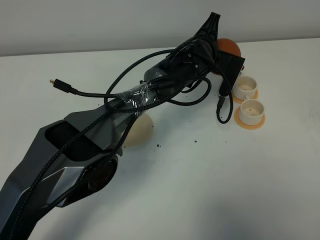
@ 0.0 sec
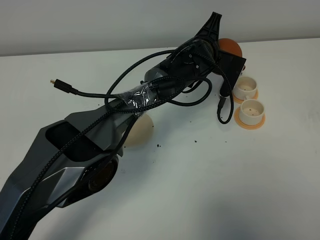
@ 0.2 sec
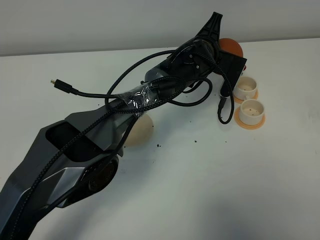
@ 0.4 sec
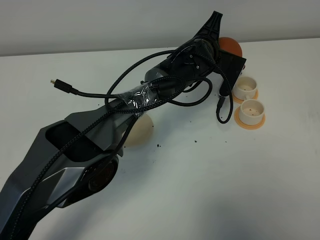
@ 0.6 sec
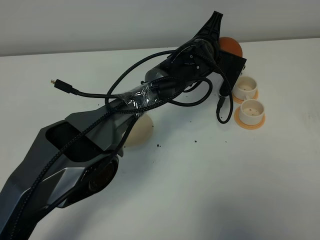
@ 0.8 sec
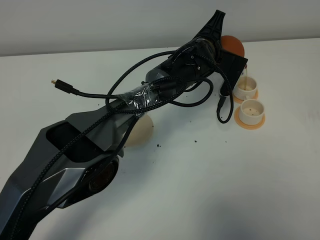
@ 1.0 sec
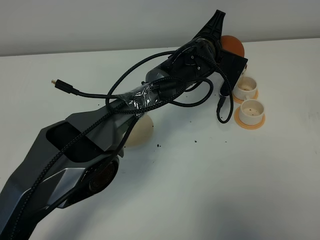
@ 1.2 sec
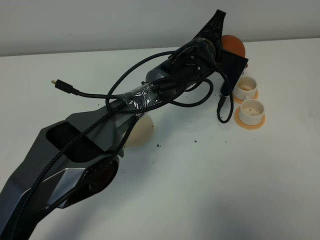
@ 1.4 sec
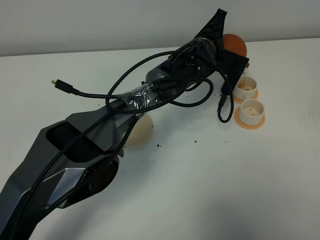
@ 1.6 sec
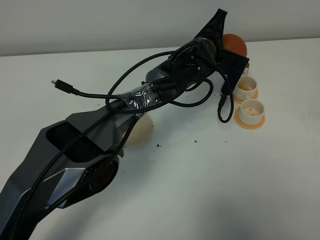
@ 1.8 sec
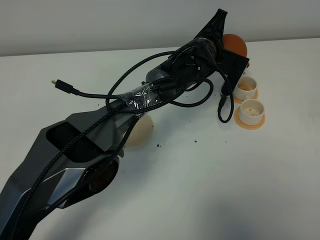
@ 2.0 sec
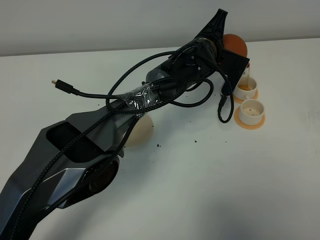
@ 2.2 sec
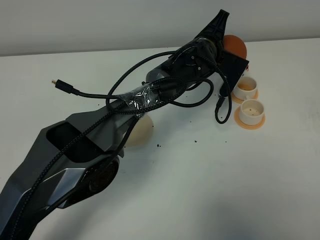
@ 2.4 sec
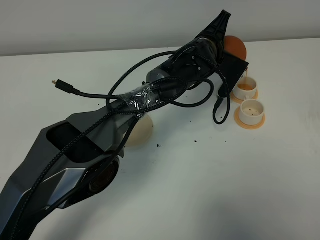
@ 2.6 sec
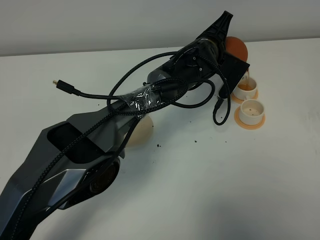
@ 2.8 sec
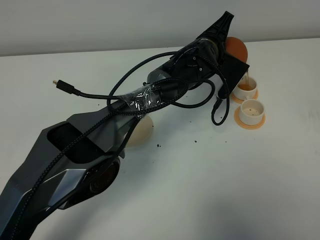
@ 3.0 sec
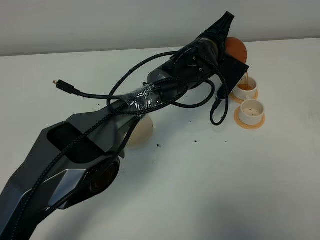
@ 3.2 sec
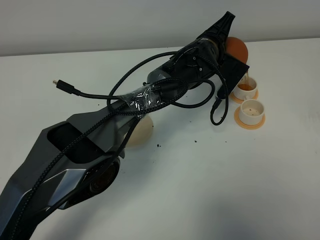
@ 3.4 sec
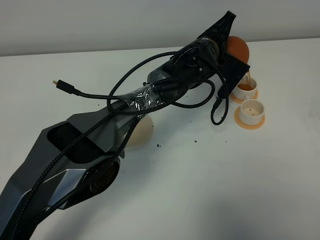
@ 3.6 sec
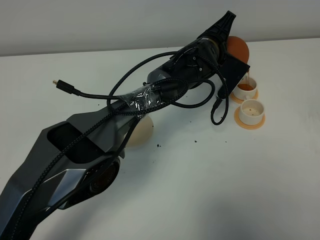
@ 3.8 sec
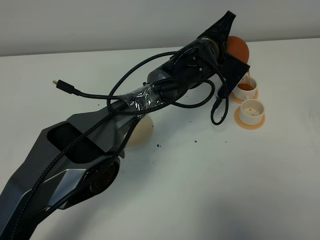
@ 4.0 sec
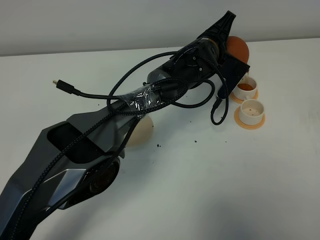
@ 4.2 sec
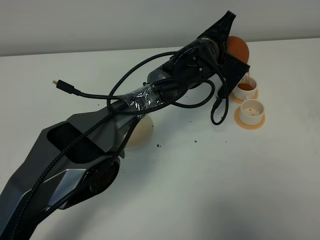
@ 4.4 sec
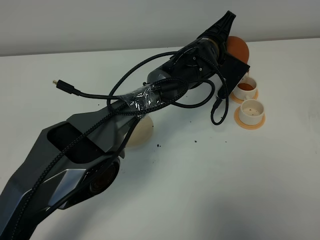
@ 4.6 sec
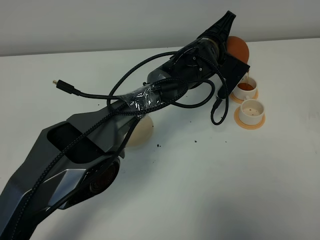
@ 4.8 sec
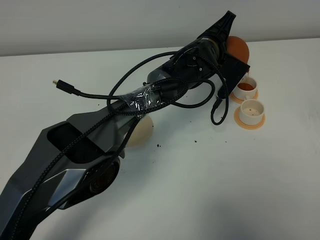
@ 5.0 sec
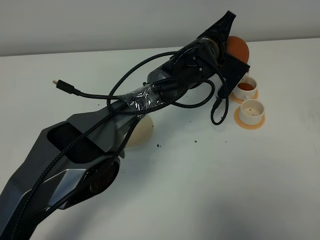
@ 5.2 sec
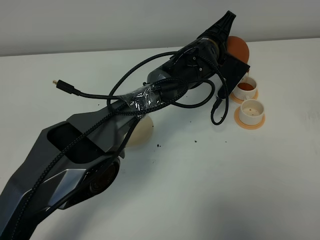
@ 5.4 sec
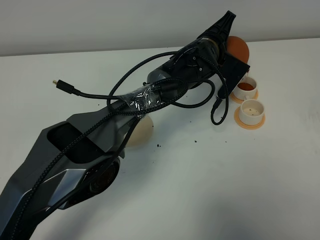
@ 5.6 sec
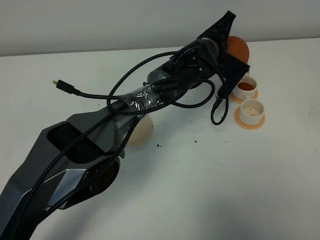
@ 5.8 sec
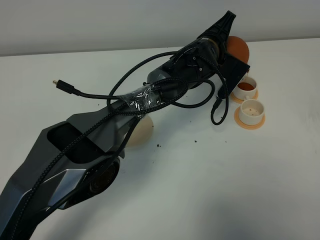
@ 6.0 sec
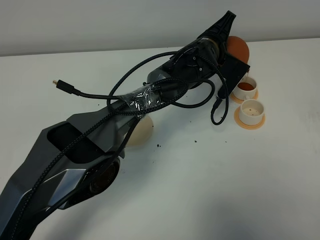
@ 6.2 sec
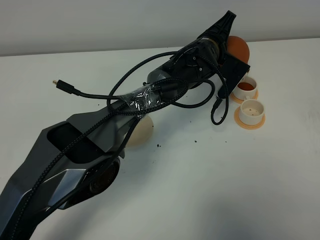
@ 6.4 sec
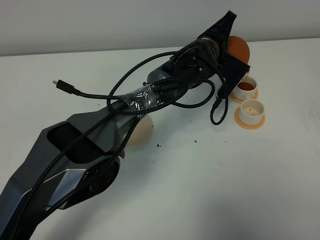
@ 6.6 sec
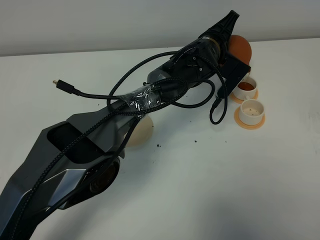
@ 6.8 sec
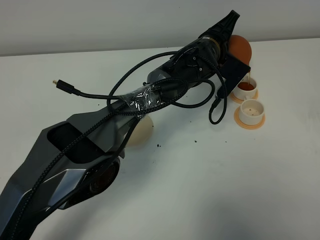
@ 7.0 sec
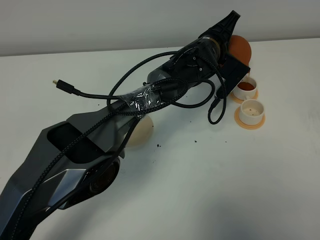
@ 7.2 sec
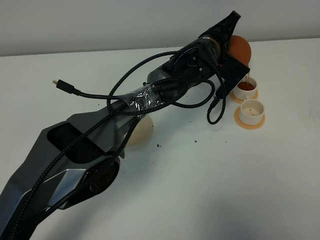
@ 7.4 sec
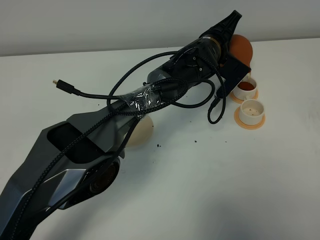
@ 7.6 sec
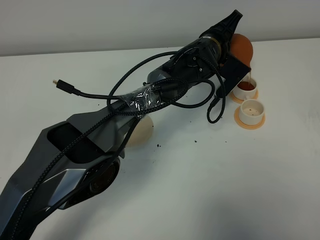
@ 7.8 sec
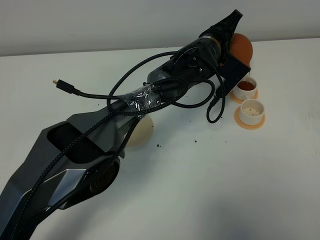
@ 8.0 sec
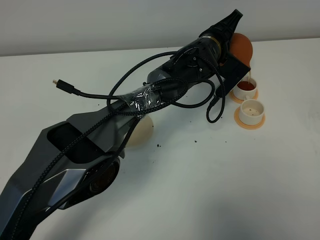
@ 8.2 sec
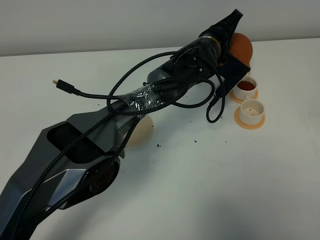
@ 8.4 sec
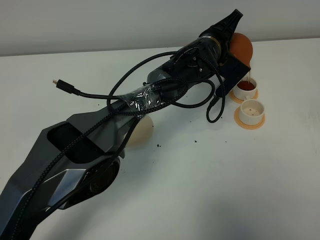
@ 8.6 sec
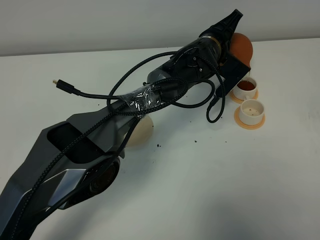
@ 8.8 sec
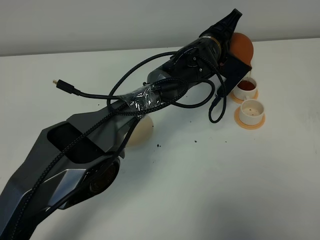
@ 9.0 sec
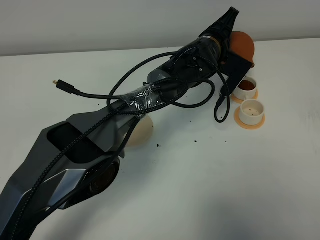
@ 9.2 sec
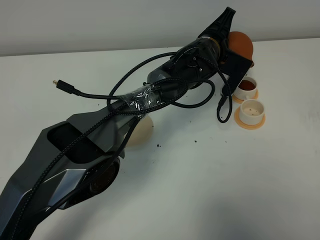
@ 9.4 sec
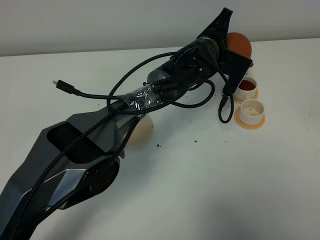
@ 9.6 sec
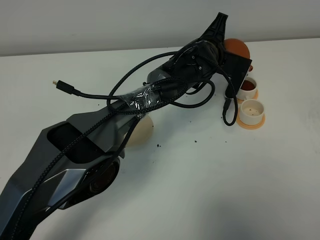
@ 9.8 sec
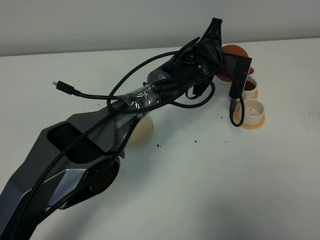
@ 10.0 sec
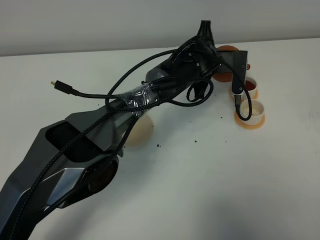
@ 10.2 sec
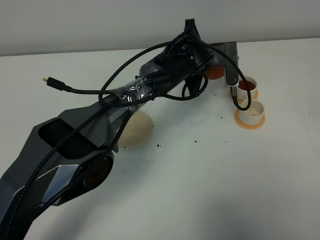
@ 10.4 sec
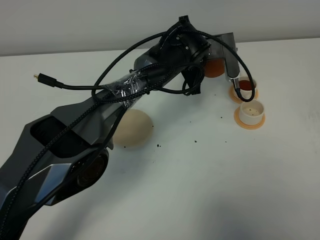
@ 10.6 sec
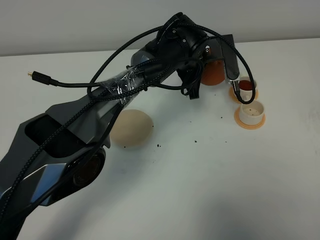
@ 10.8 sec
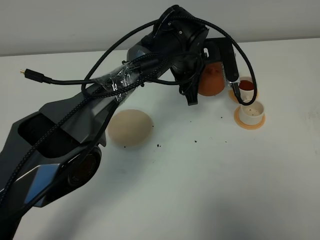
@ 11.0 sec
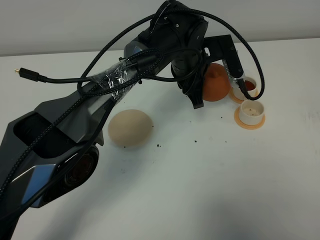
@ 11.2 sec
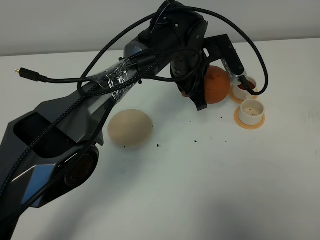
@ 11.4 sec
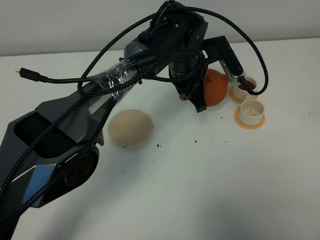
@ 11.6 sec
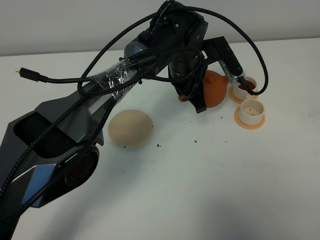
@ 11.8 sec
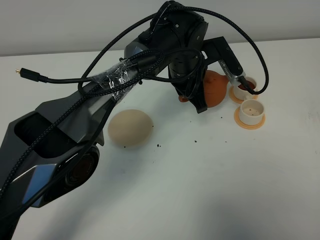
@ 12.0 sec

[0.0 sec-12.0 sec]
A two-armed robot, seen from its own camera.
Task of the whole recording: grasp the brown teapot and pour the tea into the two white teacups one by one, put the brown teapot back in its original place.
Step, 0.0 sec to 9.6 sec: Pour tea into the teacup with the left gripper.
0.0 sec to 1.6 sec: Both grippers stay put.
1.6 sec to 3.0 sec: There are only small adjustments of the grippers.
3.0 sec to 6.0 sec: Both grippers stay about where they are.
6.0 sec to 7.6 sec: The grippers make only small movements.
7.6 sec to 9.0 sec: Both grippers stay put.
10.4 sec to 12.0 sec: The left gripper shifts by about 5 cm.

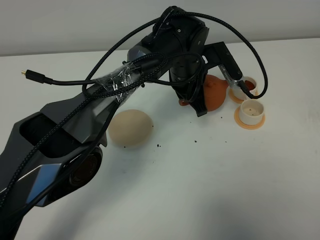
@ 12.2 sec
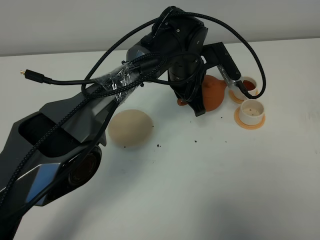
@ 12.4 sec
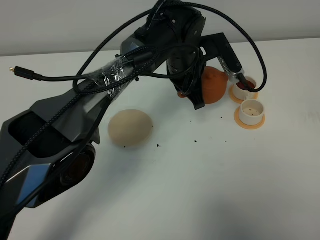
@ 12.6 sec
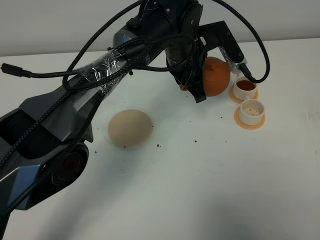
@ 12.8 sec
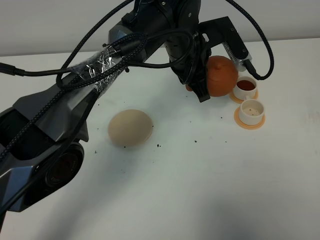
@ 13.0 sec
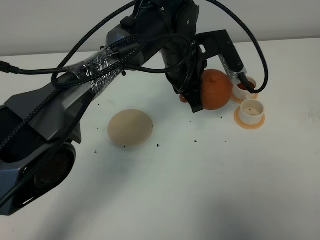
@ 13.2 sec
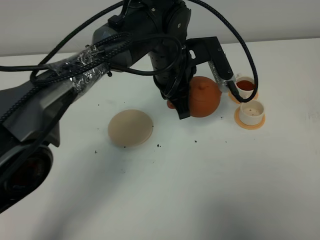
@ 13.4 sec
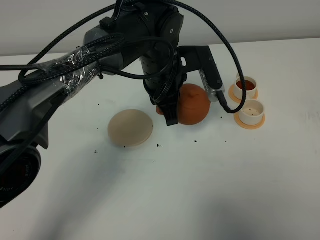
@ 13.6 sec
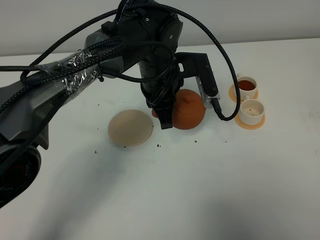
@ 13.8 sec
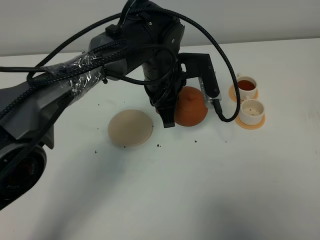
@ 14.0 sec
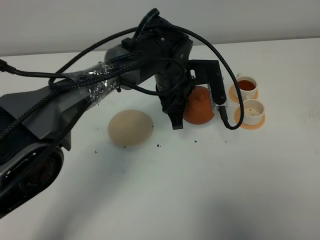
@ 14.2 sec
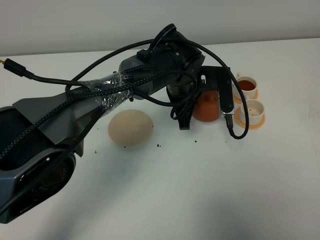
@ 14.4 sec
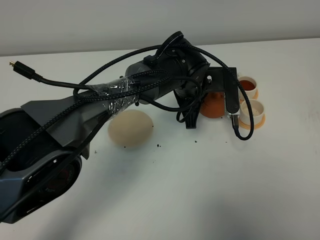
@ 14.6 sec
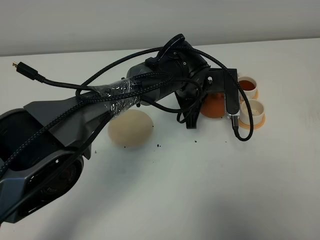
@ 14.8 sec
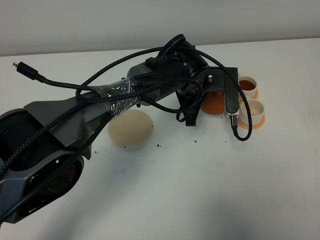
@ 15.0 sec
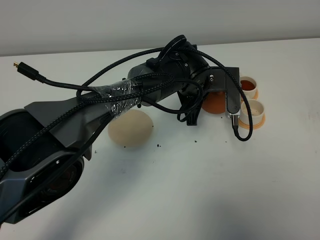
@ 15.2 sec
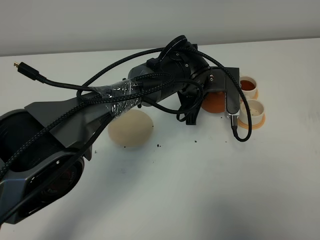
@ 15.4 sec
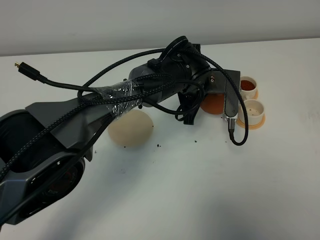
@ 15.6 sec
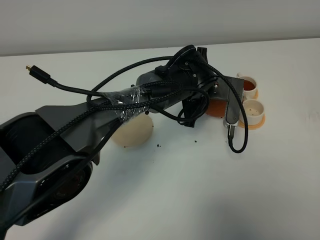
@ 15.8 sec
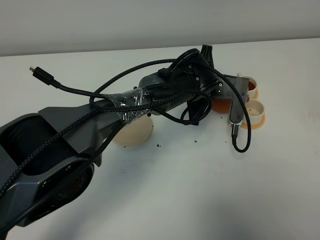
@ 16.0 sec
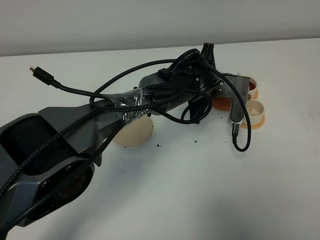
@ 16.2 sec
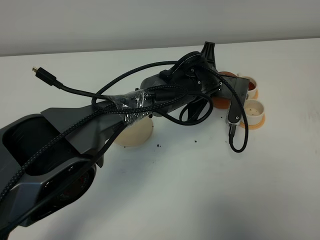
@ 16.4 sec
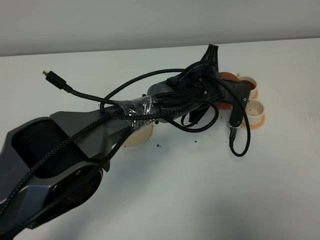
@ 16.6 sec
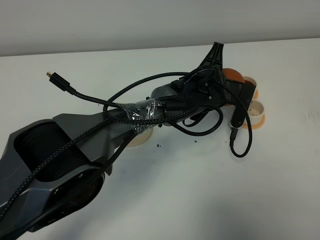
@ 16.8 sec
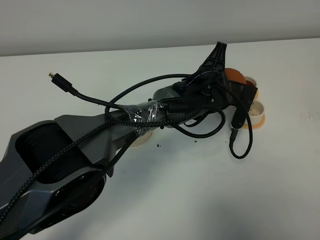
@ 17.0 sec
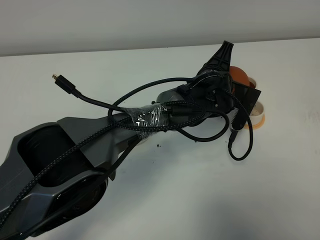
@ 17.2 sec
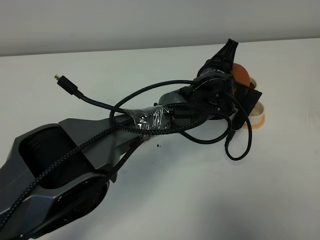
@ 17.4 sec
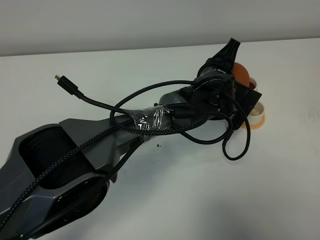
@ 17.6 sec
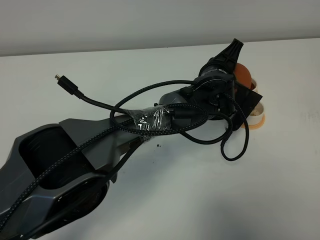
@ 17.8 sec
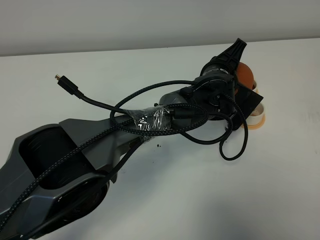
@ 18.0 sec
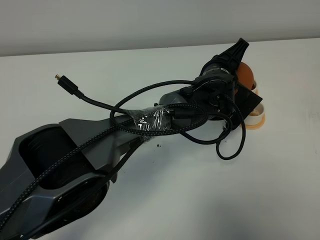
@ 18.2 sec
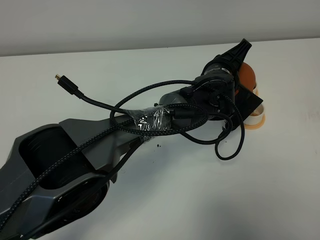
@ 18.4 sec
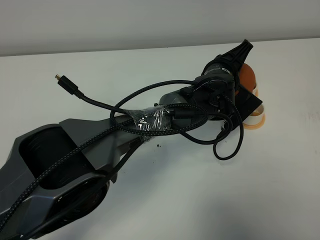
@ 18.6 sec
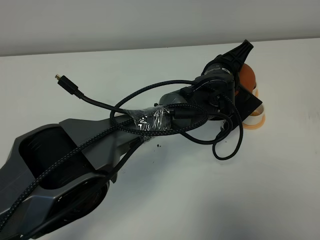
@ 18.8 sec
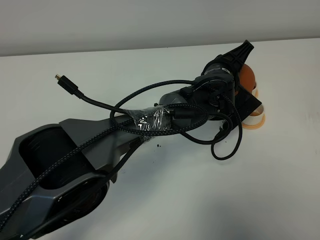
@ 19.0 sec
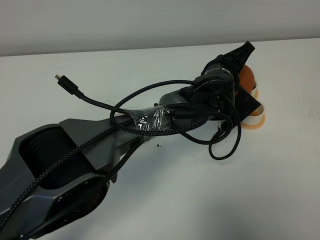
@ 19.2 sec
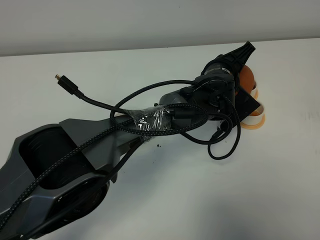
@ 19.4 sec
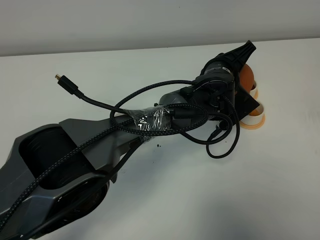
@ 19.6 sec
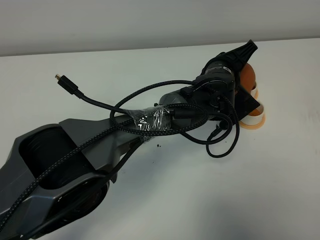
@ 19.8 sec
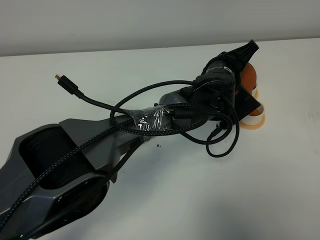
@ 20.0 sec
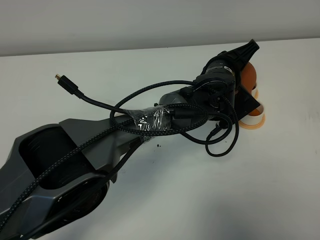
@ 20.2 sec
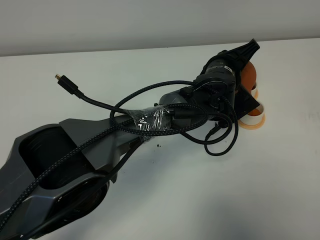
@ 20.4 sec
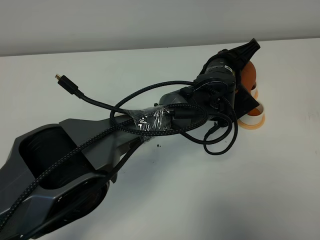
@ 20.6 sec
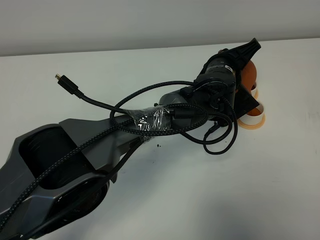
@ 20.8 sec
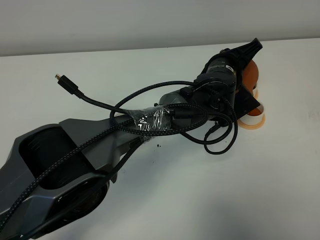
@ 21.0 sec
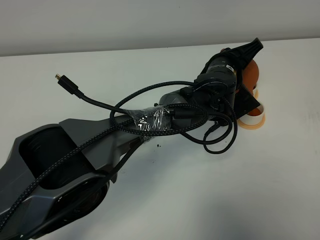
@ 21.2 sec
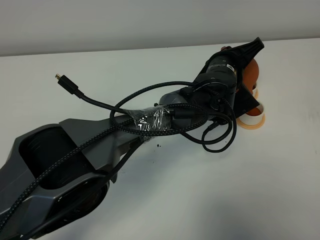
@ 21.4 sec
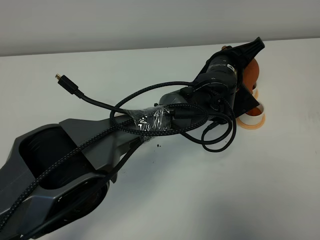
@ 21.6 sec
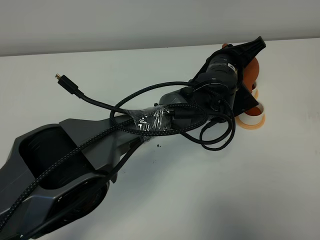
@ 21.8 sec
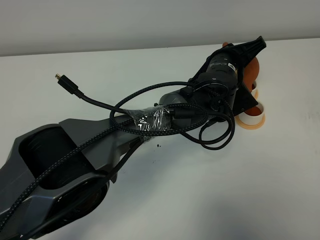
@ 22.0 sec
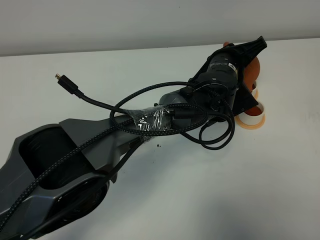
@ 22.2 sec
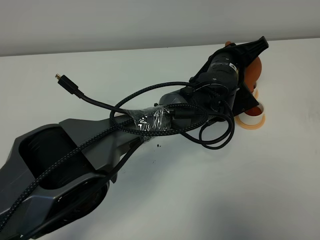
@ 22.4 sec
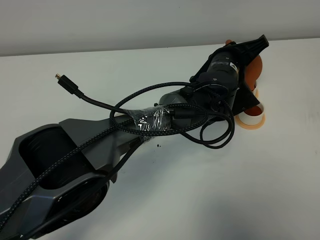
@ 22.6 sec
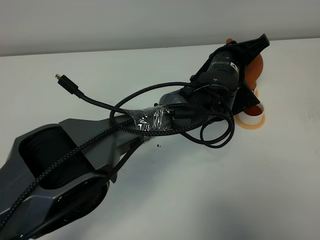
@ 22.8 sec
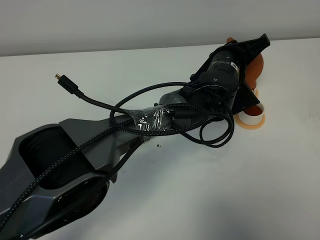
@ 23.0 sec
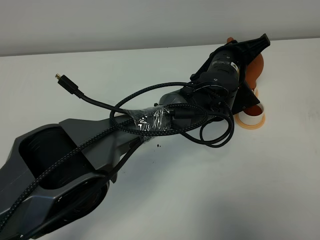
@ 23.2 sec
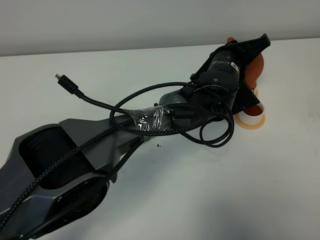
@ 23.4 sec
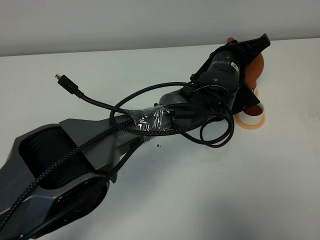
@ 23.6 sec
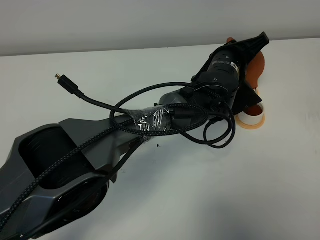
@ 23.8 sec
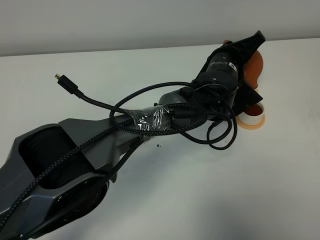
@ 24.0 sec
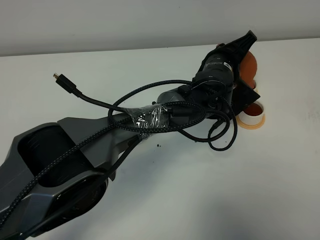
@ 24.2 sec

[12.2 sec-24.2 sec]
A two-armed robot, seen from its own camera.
Task of the whole recording: grasp the brown teapot and pour the tea into the two white teacups one by one, put the brown teapot back in its original place.
Step, 12.2 sec to 24.2 sec: Pour tea into the teacup with the left gripper.
12.2 sec to 13.8 sec: The left gripper changes place by roughly 10 cm.
13.8 sec to 15.2 sec: The left gripper travels downward and to the right by some 10 cm.
18.2 sec to 21.2 sec: The grippers make only small movements.
21.2 sec to 24.2 sec: The grippers move only a little.
